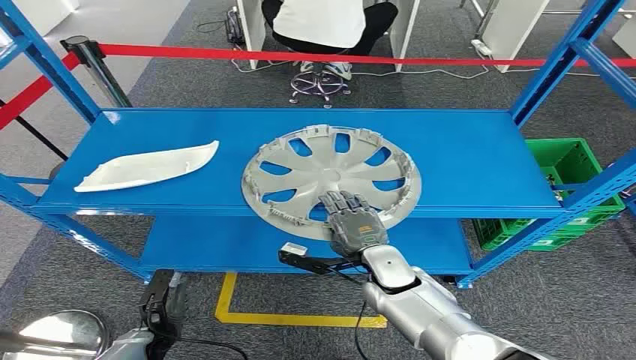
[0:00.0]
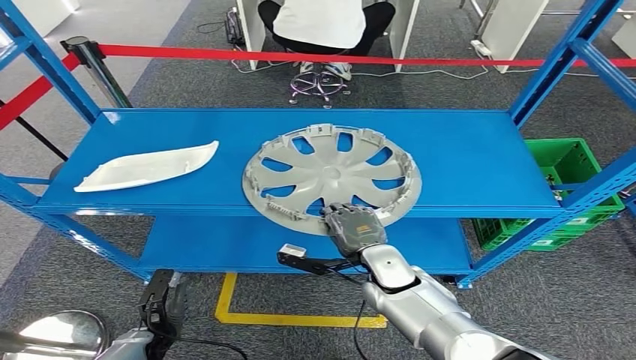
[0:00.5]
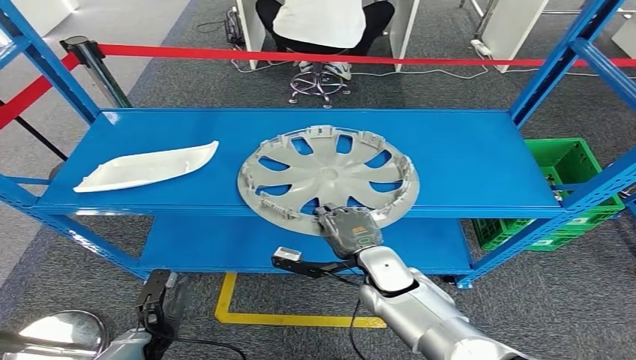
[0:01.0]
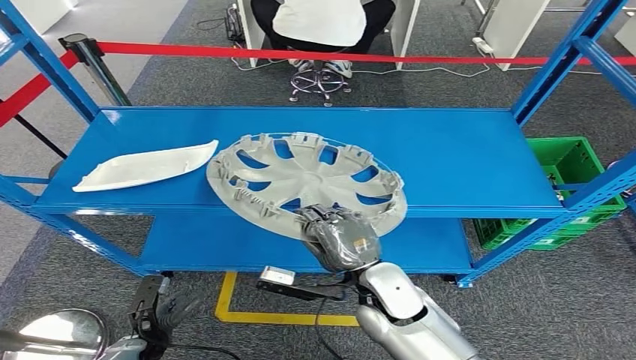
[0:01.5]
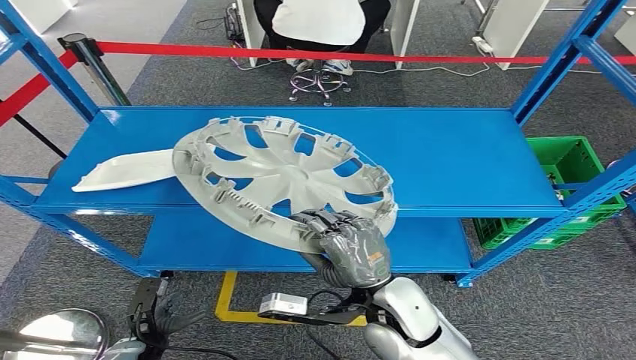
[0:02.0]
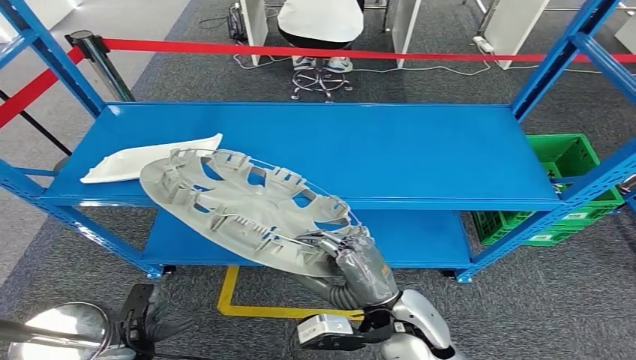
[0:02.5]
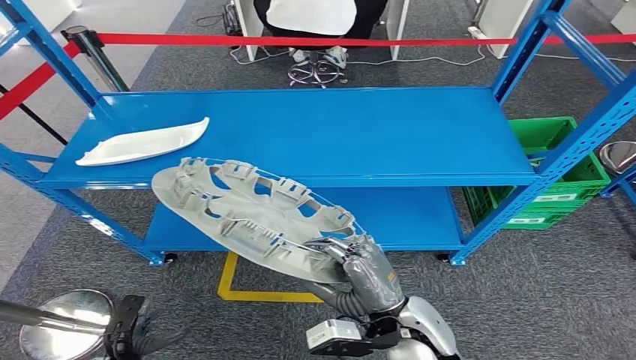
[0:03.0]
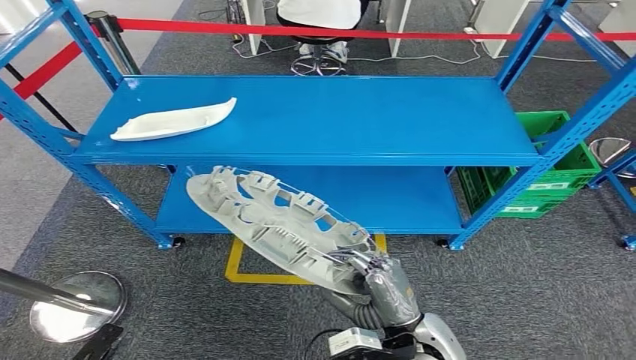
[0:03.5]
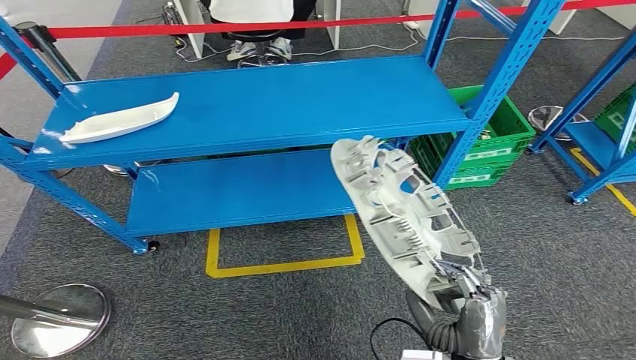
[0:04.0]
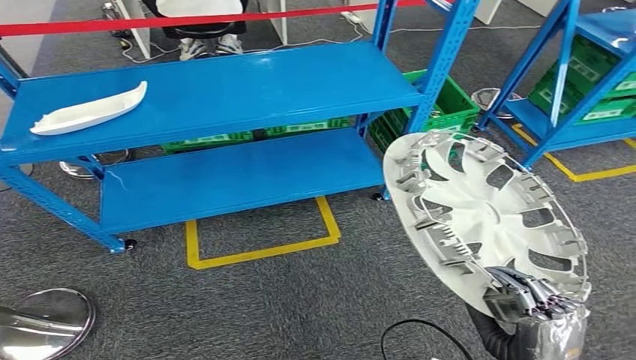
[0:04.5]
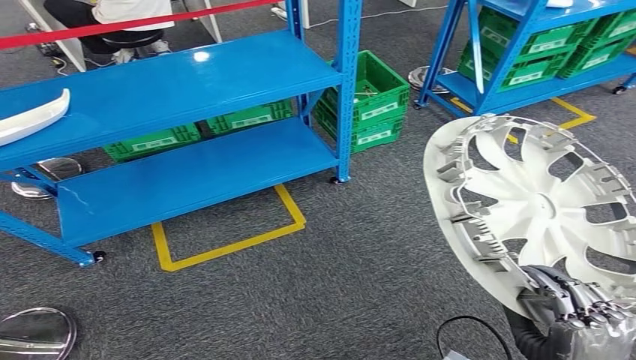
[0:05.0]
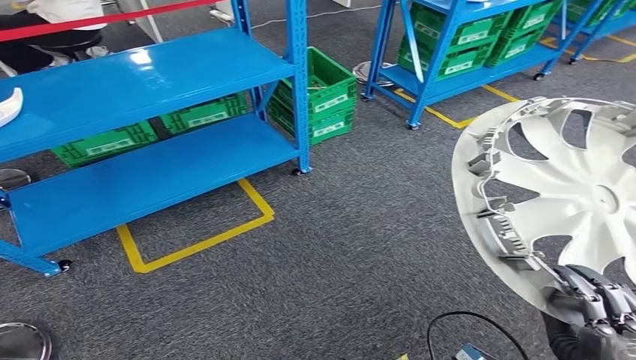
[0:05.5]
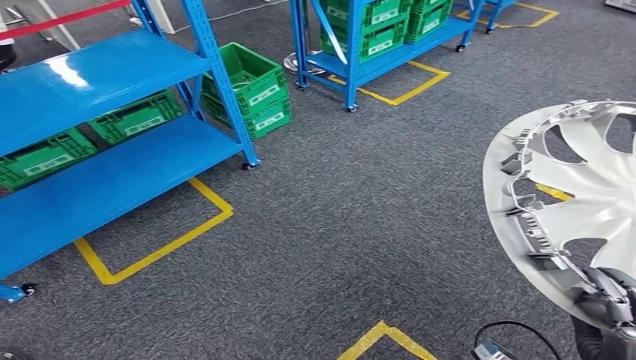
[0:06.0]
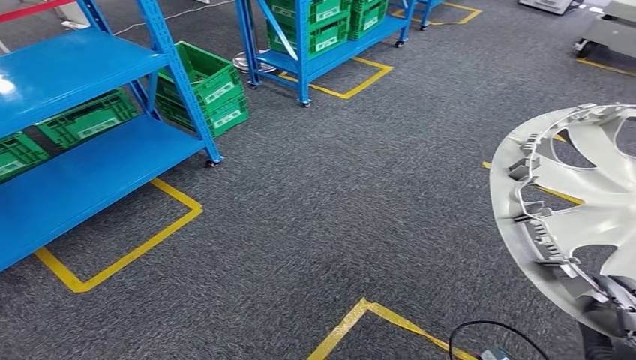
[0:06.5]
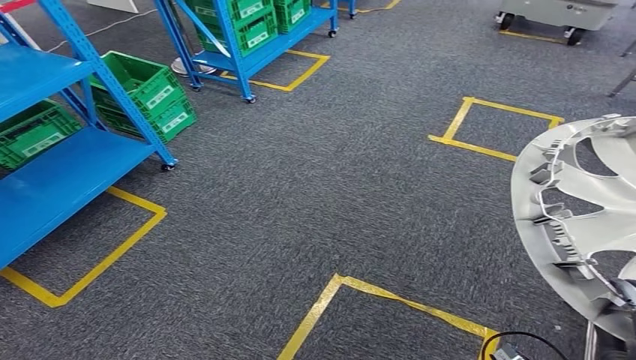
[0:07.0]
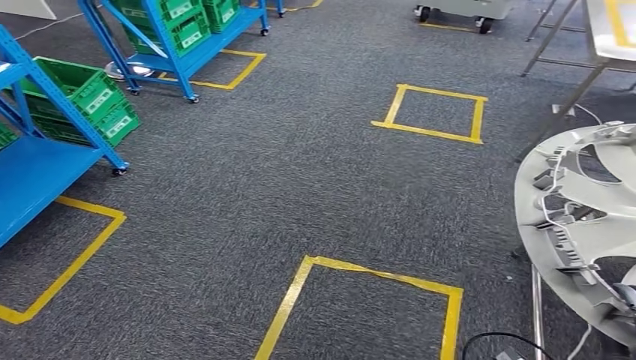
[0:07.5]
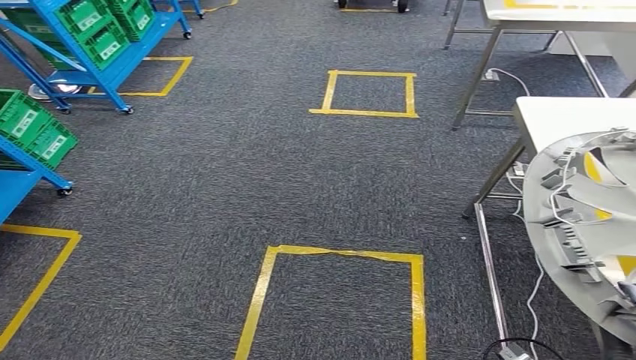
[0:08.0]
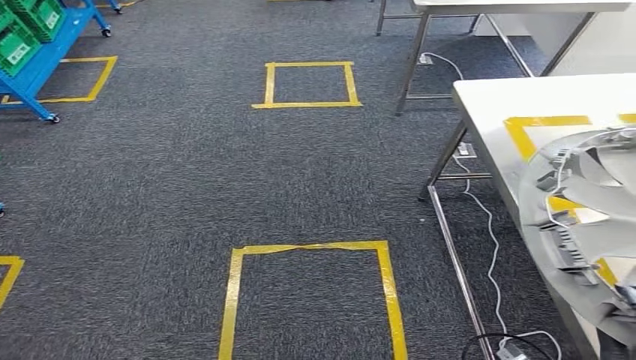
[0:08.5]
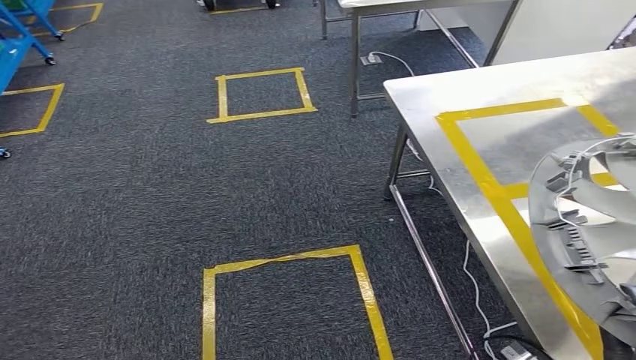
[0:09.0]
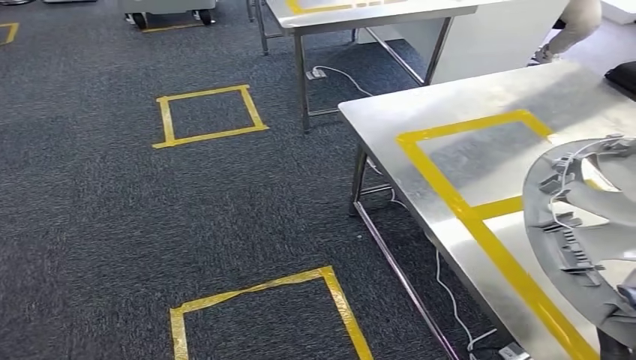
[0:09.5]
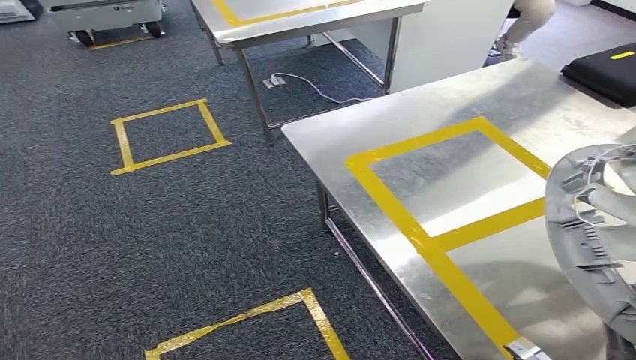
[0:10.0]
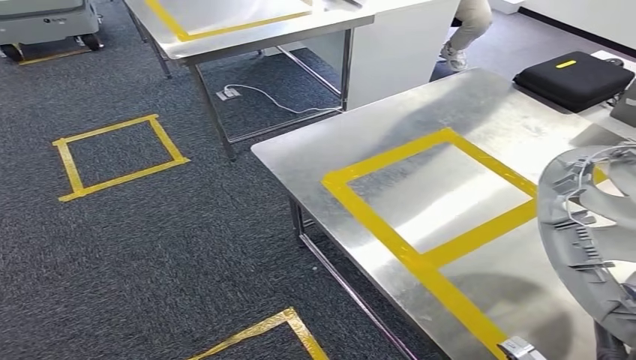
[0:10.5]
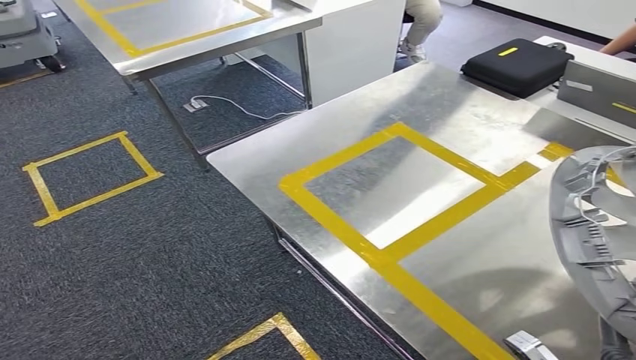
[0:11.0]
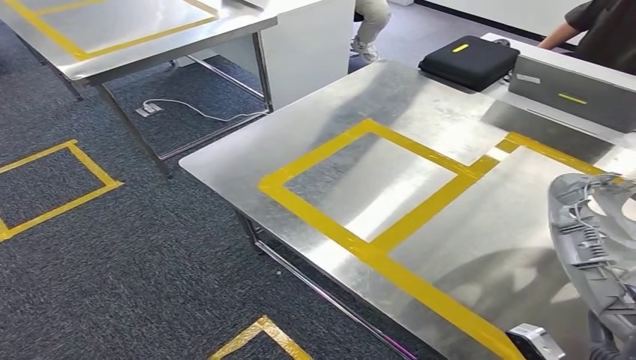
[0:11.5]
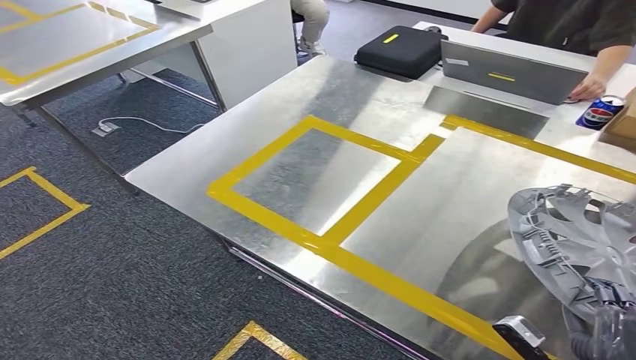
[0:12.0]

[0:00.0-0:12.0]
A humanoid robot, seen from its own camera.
Step, 0:00.0 to 0:03.5: Pick up the small component from the shelf.
Step, 0:04.0 to 0:10.0: Bring the small component to the front of the workbench.

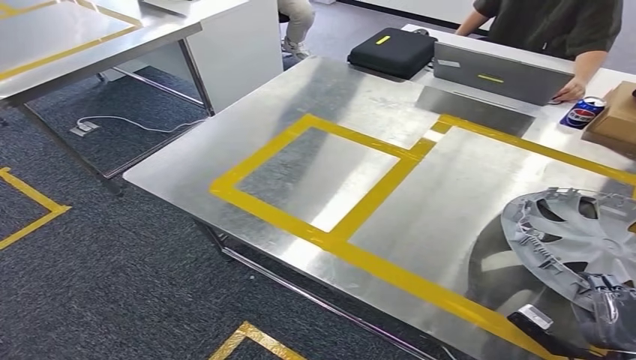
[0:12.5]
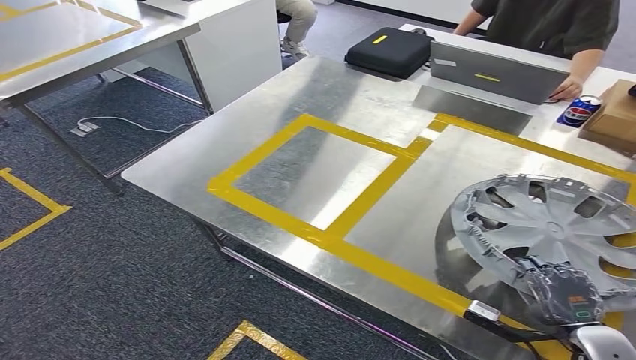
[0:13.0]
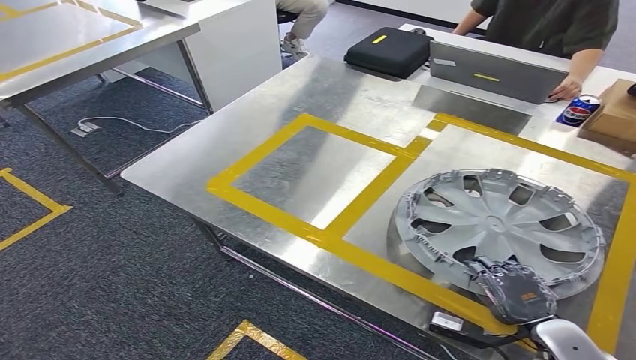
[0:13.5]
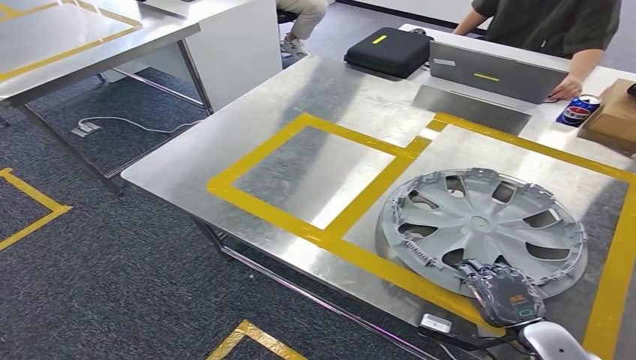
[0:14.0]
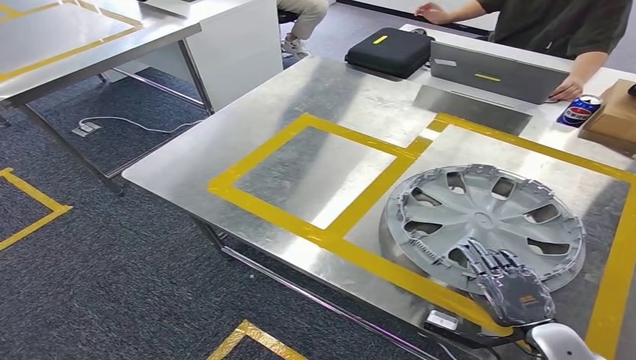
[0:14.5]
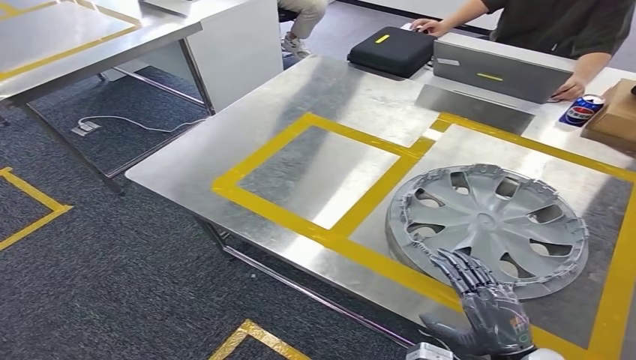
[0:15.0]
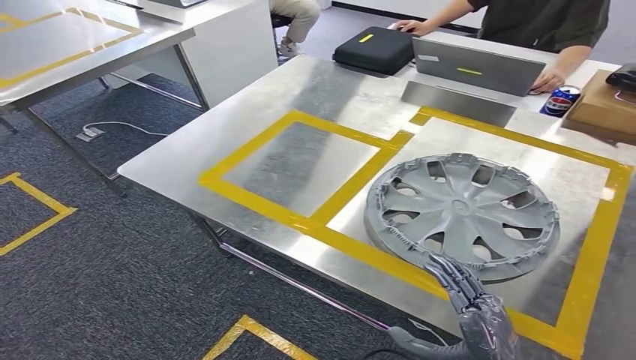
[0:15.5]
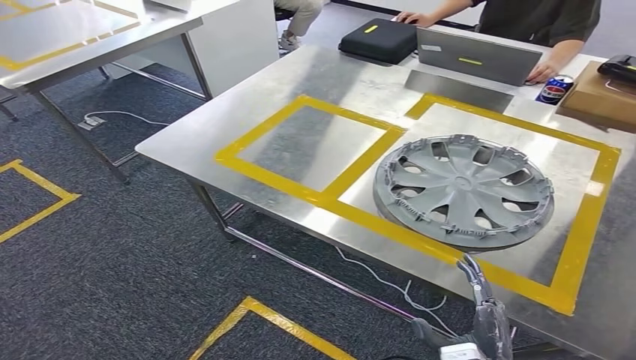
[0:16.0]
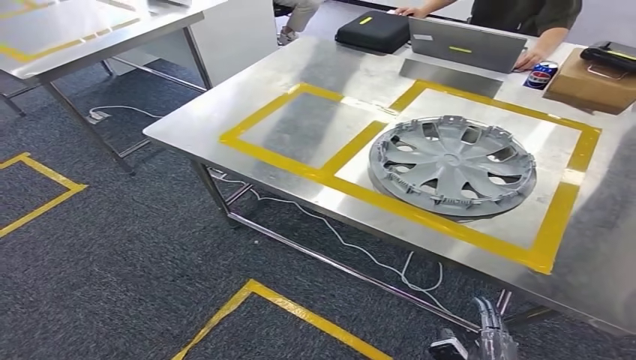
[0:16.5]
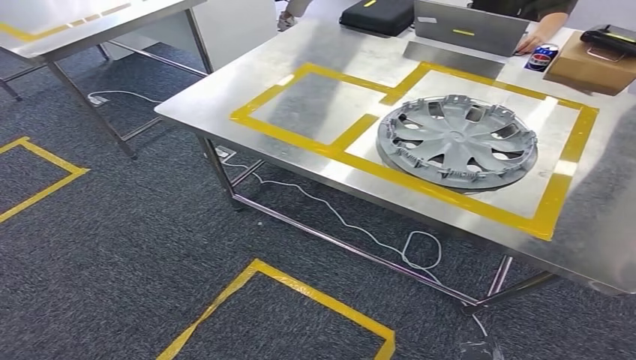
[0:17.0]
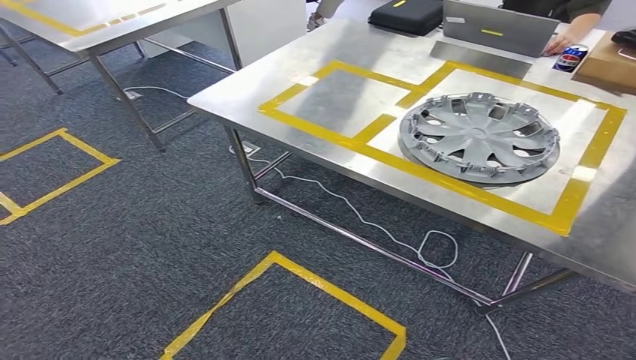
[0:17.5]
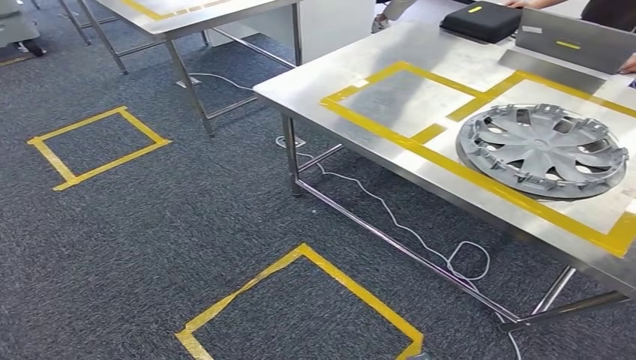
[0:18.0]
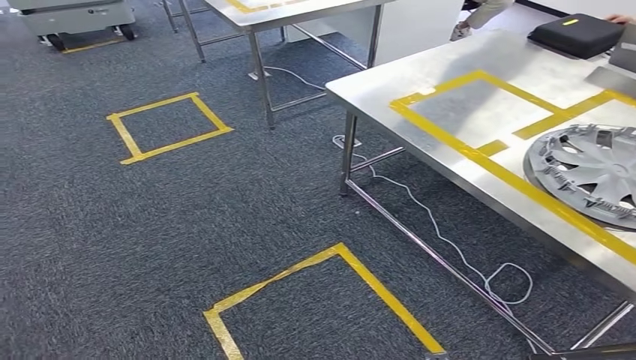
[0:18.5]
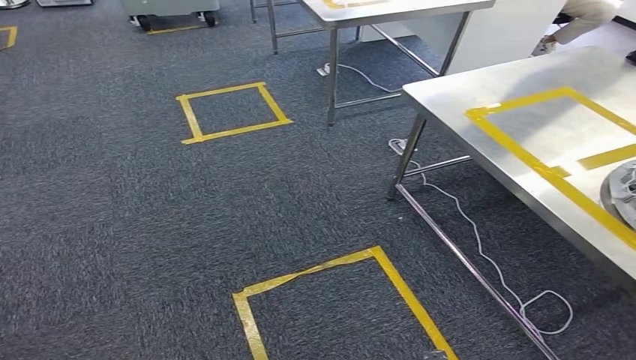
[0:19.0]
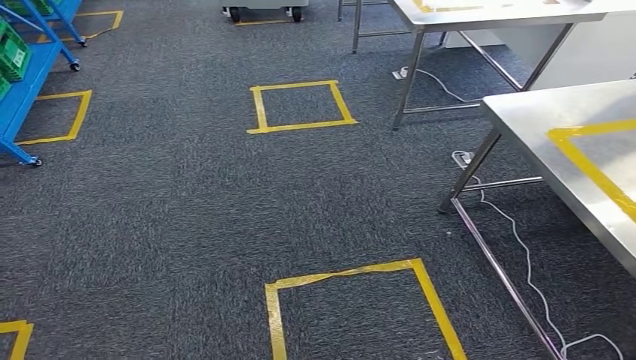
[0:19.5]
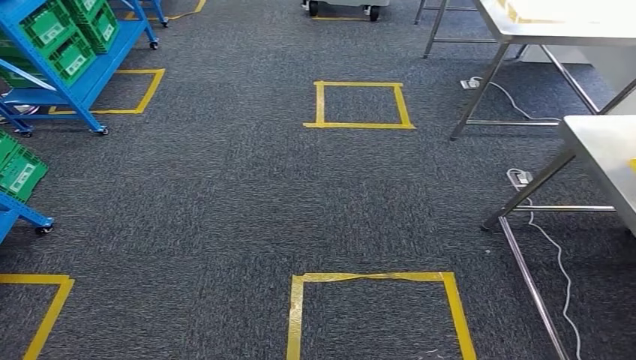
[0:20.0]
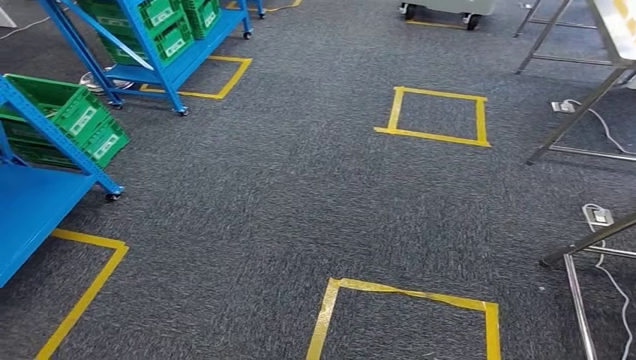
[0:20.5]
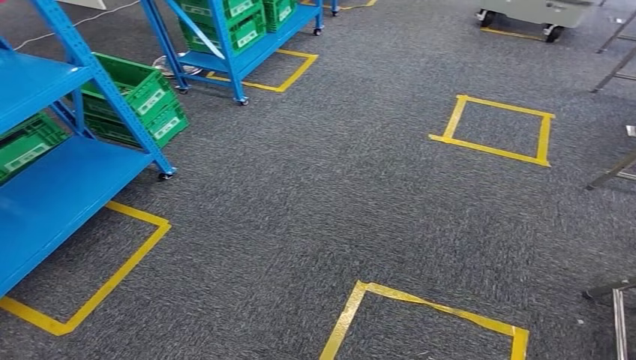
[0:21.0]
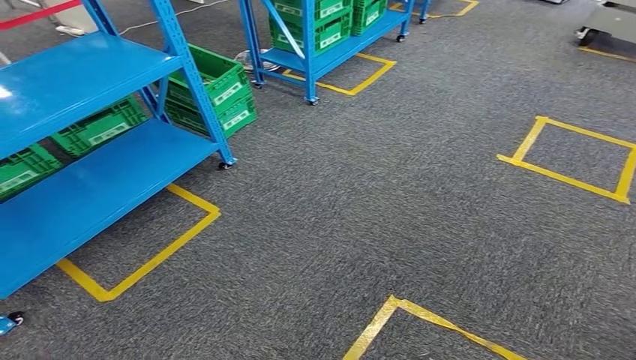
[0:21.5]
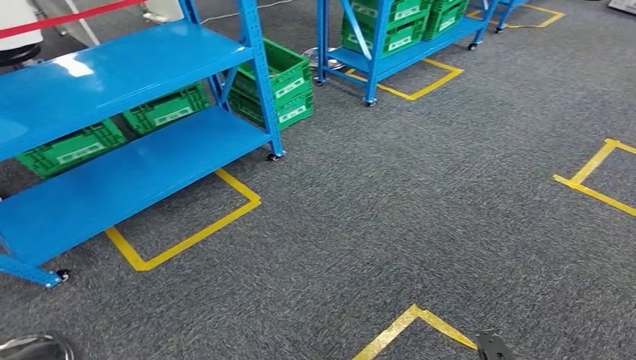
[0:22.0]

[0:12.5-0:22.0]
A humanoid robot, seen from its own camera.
Step, 0:12.5 to 0:16.5: Insert the small component into the corresponding slot on the workbench.
0:12.5 to 0:14.5: The right hand is displaced to the left and forward by approximately 10 cm.
